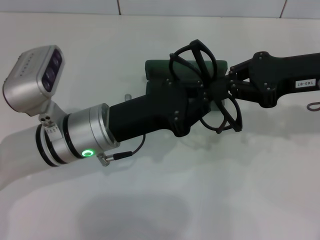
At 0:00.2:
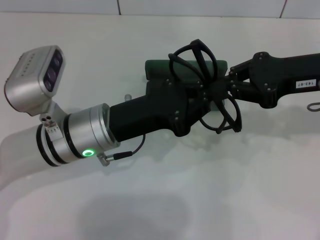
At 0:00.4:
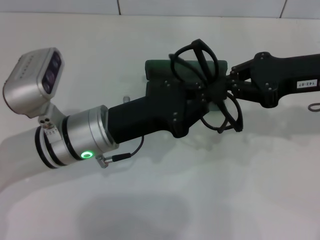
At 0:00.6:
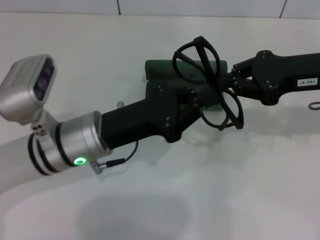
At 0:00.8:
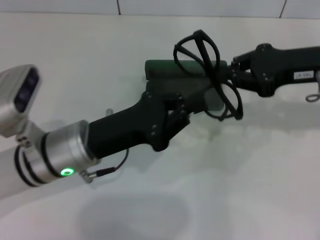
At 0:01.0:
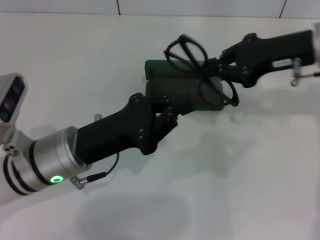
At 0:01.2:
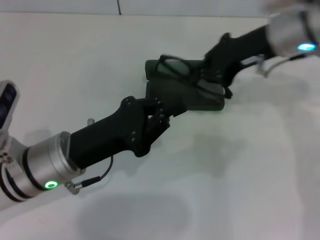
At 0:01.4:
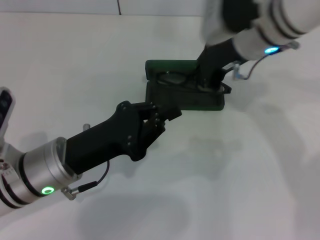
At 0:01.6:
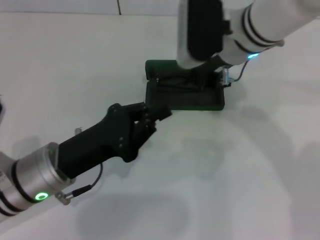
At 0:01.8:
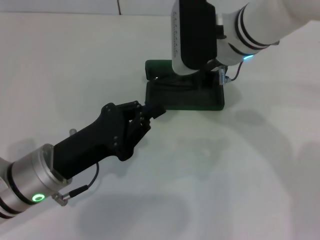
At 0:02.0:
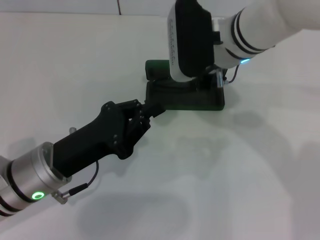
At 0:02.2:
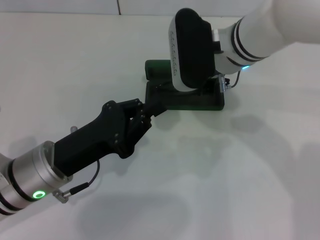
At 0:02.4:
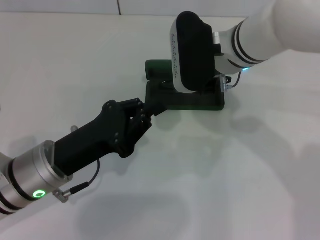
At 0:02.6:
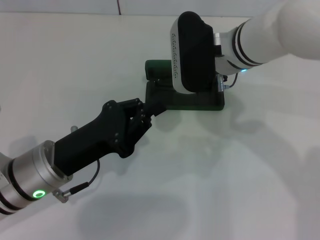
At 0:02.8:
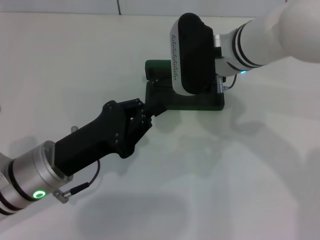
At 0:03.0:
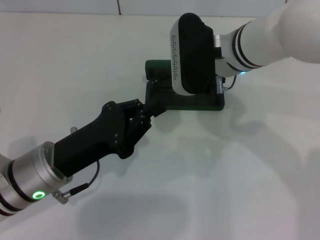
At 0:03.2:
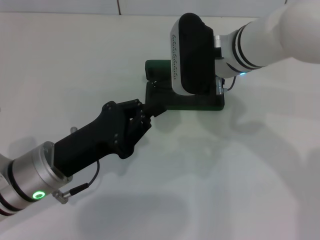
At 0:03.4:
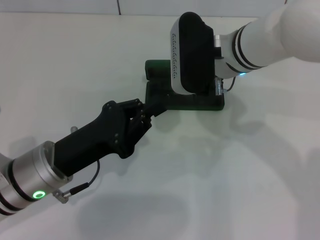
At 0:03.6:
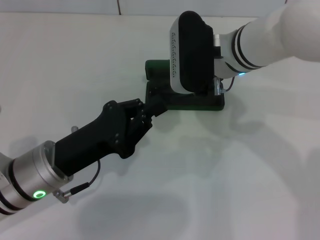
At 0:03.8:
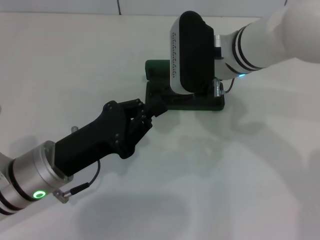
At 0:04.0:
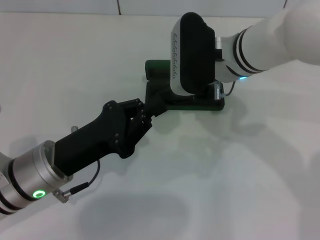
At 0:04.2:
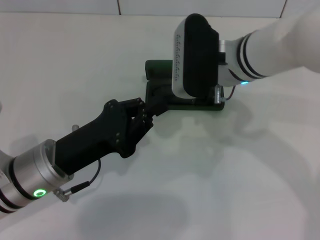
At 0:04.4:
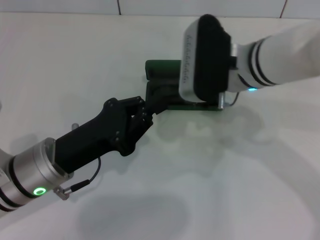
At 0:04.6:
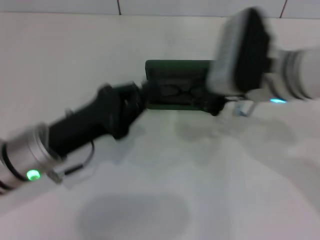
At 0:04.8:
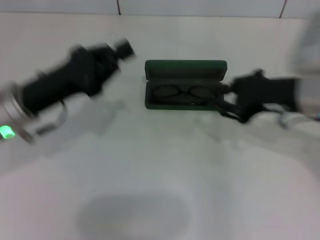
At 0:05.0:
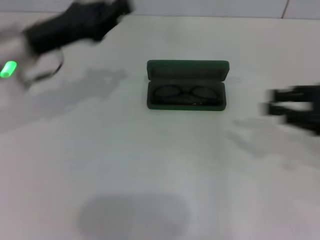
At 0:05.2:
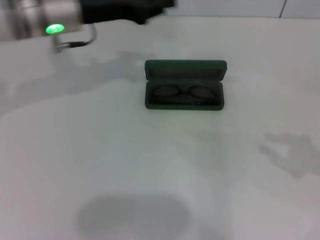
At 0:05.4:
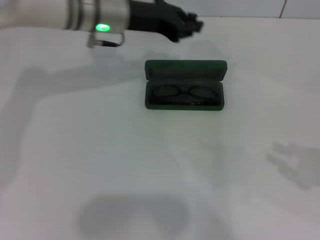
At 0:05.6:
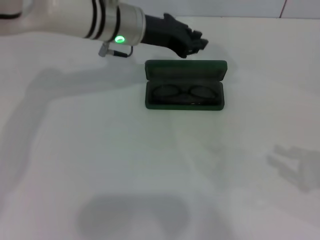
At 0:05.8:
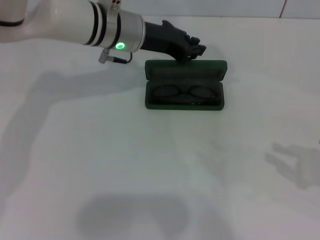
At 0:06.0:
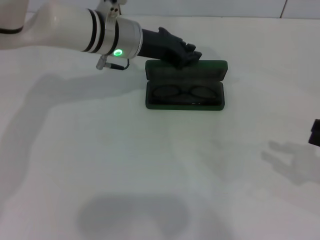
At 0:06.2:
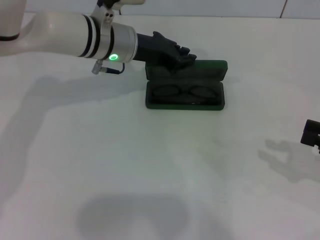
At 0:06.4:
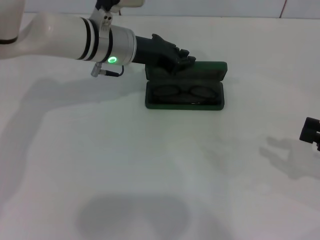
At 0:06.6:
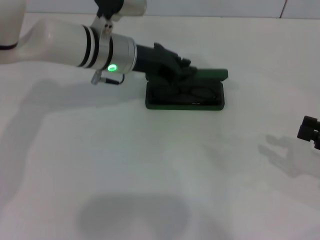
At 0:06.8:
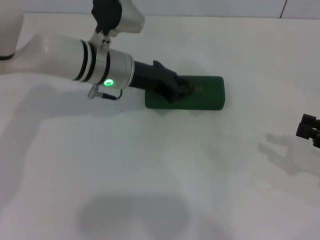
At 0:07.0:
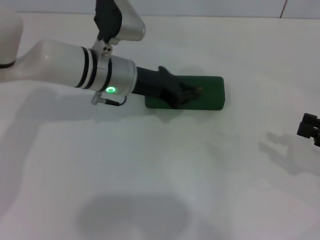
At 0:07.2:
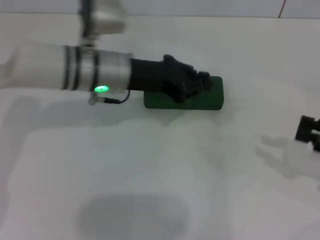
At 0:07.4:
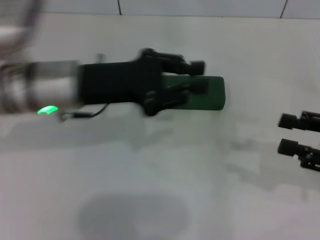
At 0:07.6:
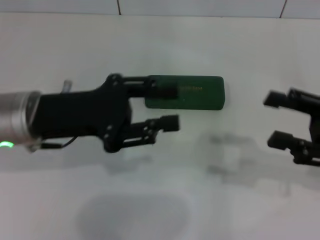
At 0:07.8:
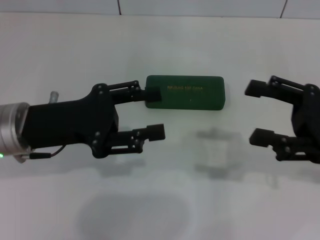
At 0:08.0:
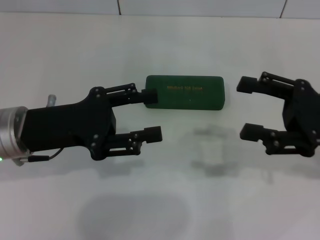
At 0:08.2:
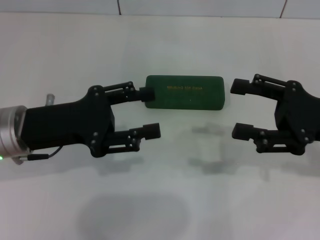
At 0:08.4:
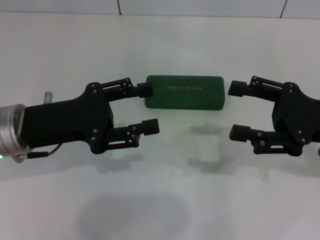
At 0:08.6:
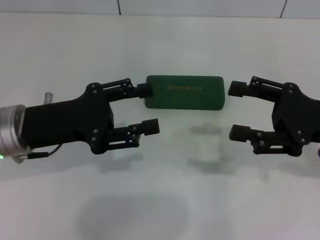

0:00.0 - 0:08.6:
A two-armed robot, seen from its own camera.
Step, 0:00.0 - 0:03.6: Put the glasses into the case with your right hand.
Step, 0:04.0 - 0:06.8: Close the glasses case with your left hand.
0:00.0 - 0:01.4: The right gripper travels to the left and forward by roughly 15 cm. Meanwhile the left gripper moves some 5 cm.
0:01.4 - 0:02.8: The right gripper shifts by some 5 cm.
0:02.8 - 0:04.4: There are only small adjustments of the grippers.
0:04.4 - 0:05.8: The right gripper travels to the right and backward by about 30 cm, while the left gripper shifts some 20 cm forward and to the right.
0:05.8 - 0:07.2: The left gripper is displaced backward by approximately 5 cm.
0:07.2 - 0:08.6: The left gripper is displaced backward and to the left by roughly 15 cm, and opens its fingers. The right gripper goes some 10 cm to the left, and opens.
